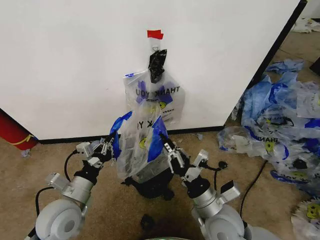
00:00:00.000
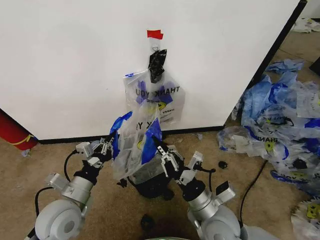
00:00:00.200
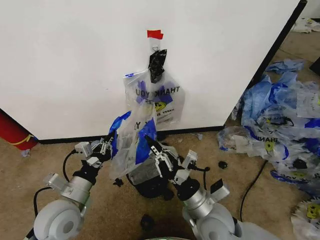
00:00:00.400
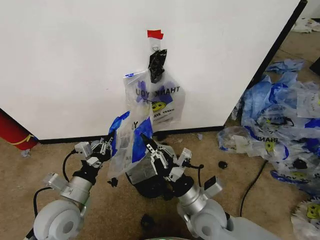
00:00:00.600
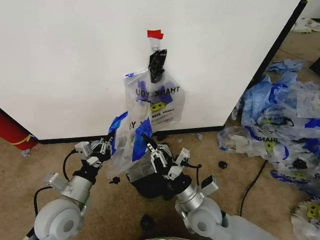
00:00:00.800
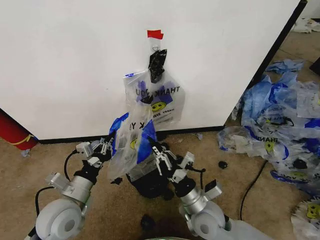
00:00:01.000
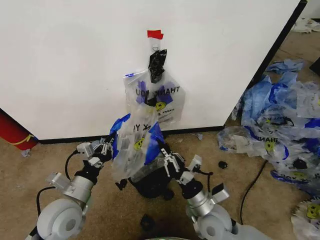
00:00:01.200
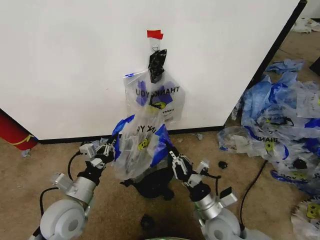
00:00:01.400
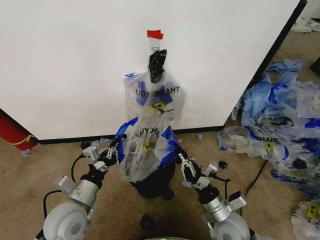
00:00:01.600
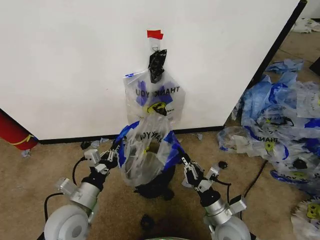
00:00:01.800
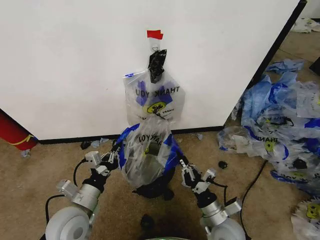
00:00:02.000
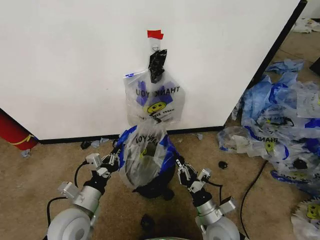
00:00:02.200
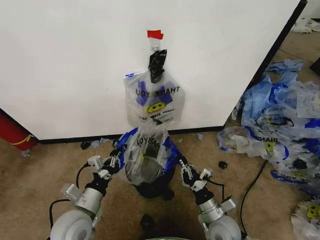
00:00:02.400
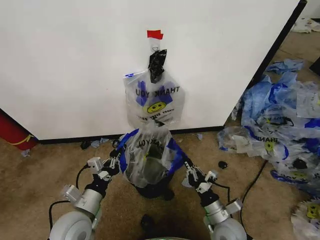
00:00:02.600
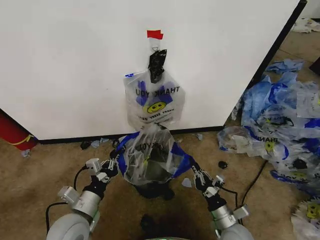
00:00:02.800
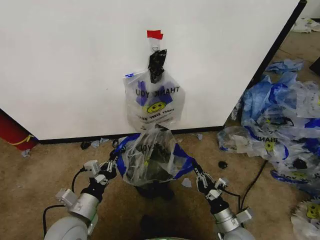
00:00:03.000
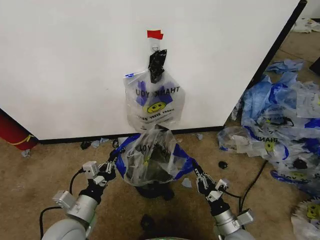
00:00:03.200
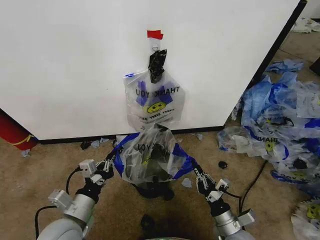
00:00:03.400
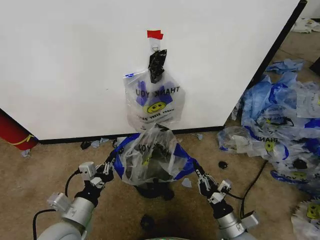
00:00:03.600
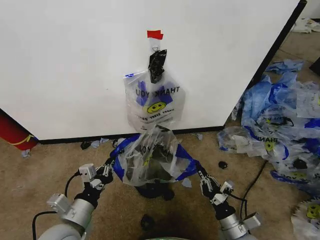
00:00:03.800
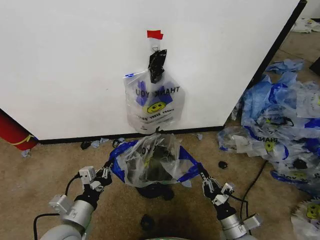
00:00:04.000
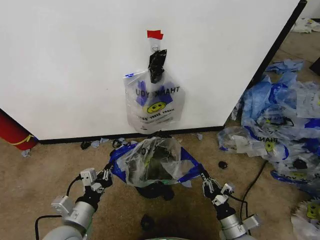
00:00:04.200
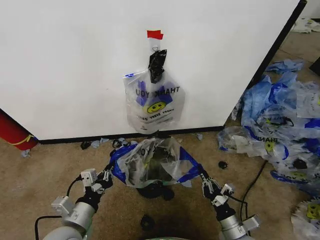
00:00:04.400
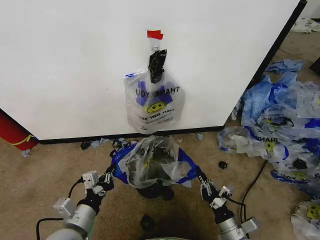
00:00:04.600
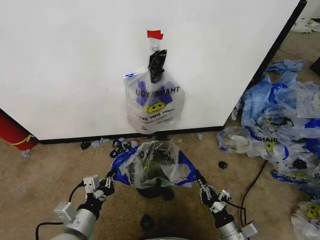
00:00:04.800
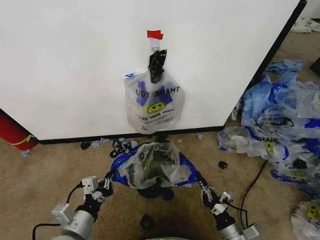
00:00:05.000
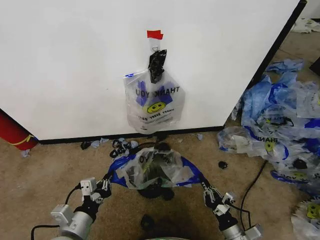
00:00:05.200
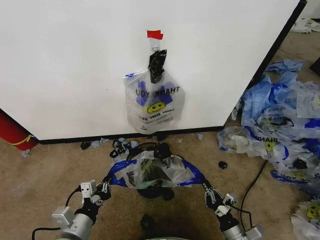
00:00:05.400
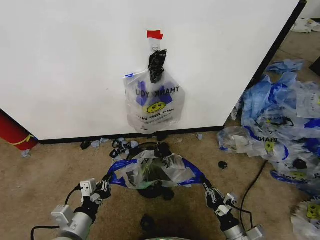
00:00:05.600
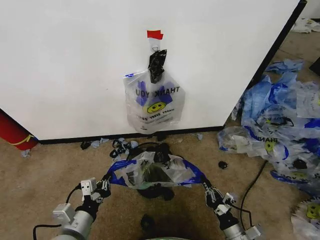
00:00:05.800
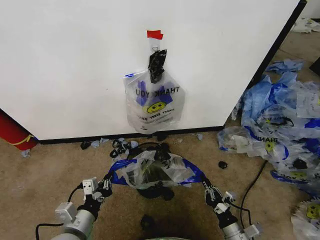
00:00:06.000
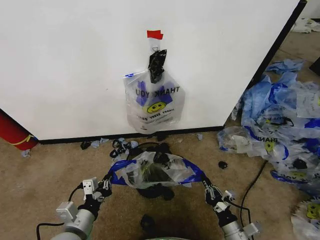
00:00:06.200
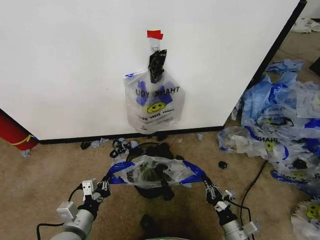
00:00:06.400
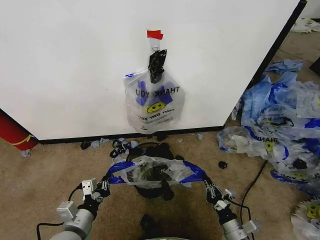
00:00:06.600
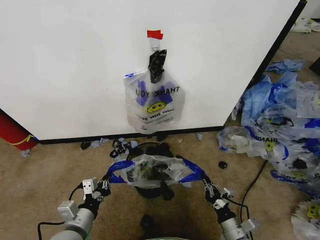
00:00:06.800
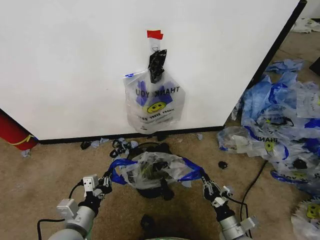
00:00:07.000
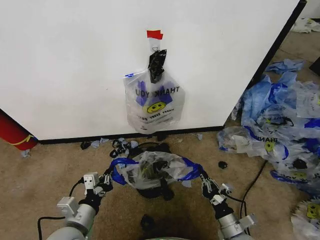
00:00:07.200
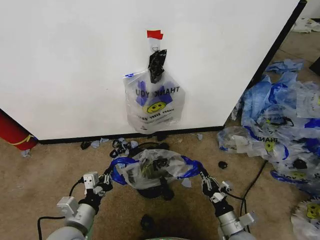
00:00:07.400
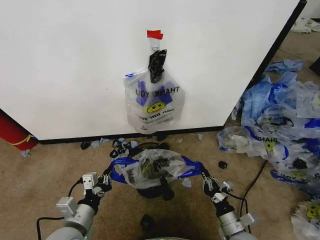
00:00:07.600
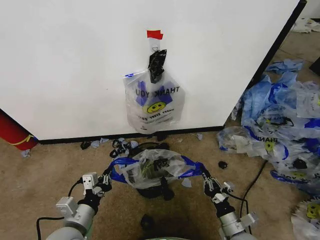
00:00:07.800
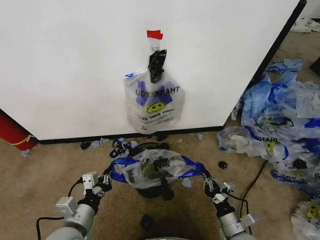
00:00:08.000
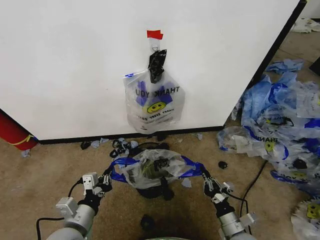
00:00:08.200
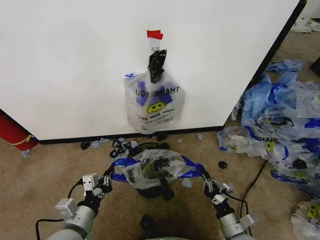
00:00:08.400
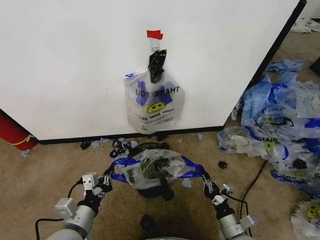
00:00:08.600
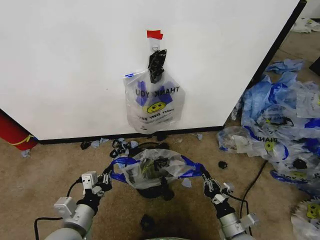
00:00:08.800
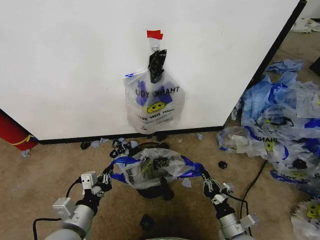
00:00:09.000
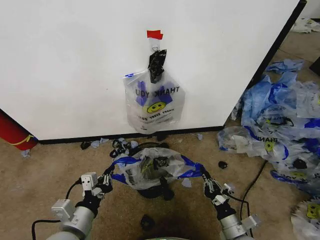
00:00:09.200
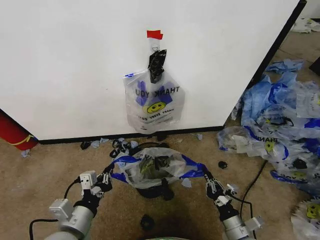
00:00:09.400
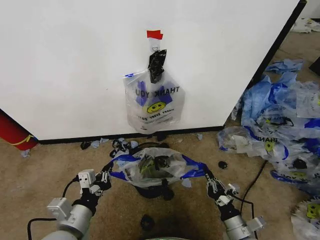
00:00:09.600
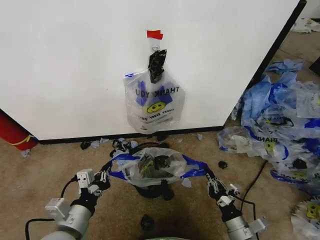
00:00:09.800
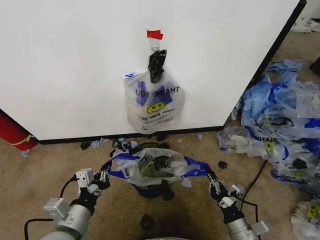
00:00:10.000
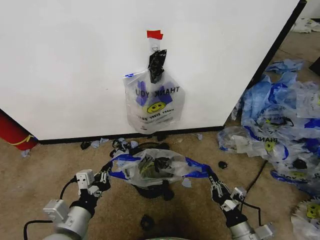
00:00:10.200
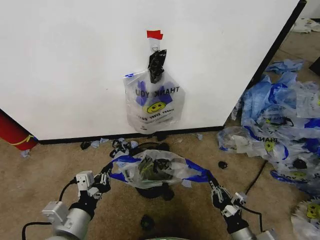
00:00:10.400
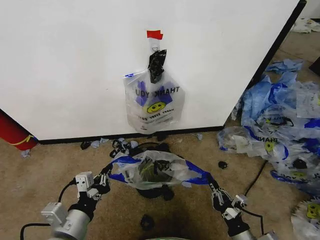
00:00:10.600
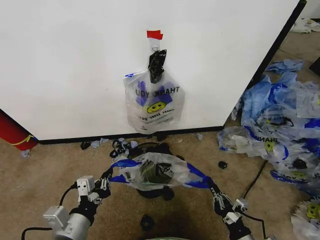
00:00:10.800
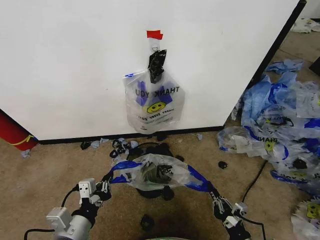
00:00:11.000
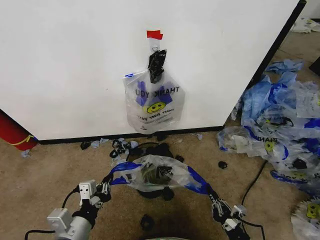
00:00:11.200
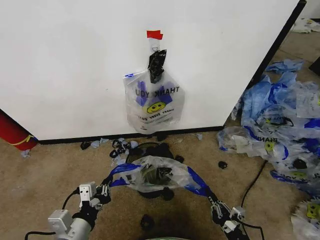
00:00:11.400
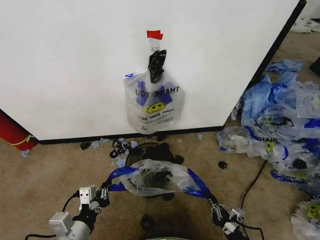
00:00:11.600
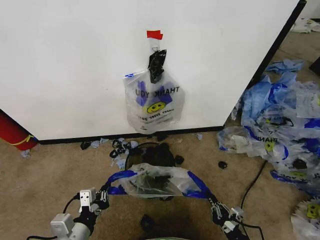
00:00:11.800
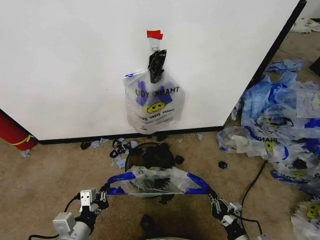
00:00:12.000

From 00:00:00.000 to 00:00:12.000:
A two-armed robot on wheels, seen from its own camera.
Task of the whole recording: Pick up the garbage bag from the wall and place it over the trash bin.
From 00:00:00.000 to 00:00:01.600: The right gripper moves downward, about 5 cm.
From 00:00:01.600 to 00:00:03.000: The right gripper shifts some 10 cm downward.
From 00:00:03.000 to 00:00:09.000: There are only small adjustments of the grippers.
From 00:00:09.000 to 00:00:10.400: The right gripper ends up some 5 cm from where it was.
From 00:00:10.400 to 00:00:12.000: Both grippers travel together downward, approximately 5 cm.

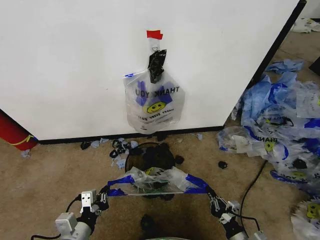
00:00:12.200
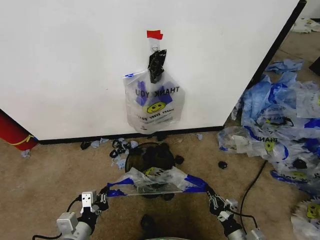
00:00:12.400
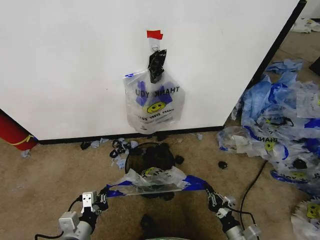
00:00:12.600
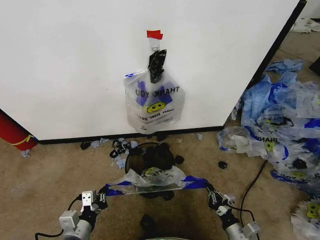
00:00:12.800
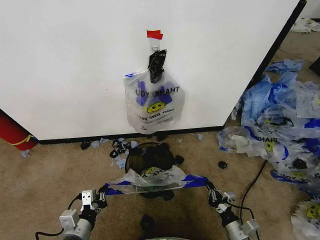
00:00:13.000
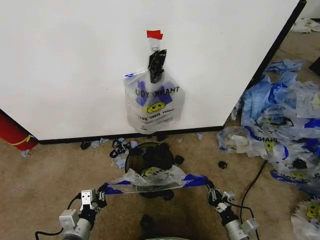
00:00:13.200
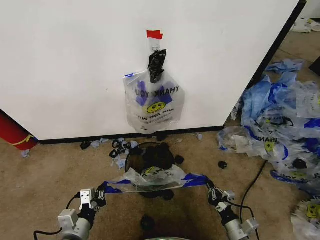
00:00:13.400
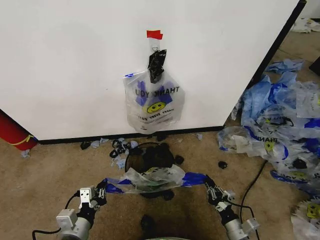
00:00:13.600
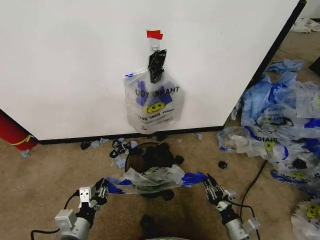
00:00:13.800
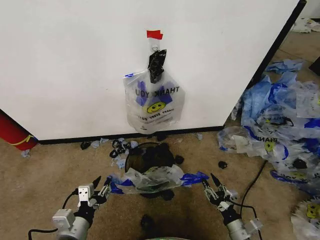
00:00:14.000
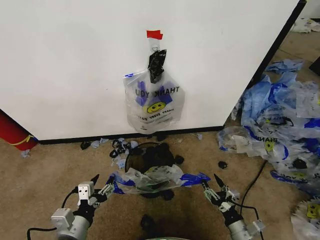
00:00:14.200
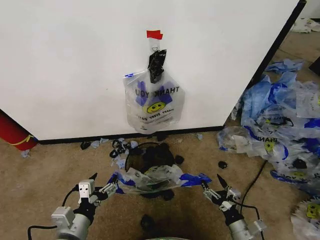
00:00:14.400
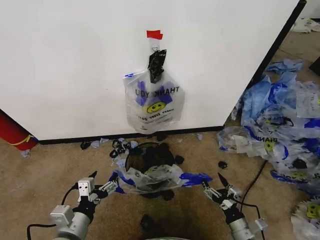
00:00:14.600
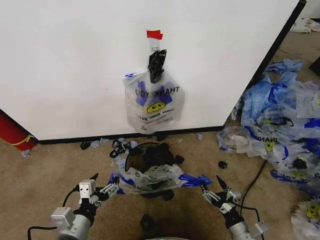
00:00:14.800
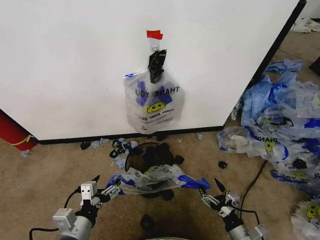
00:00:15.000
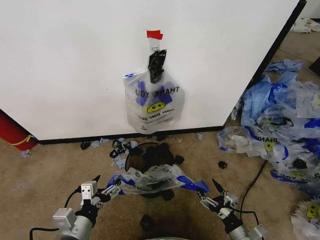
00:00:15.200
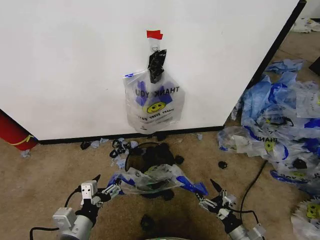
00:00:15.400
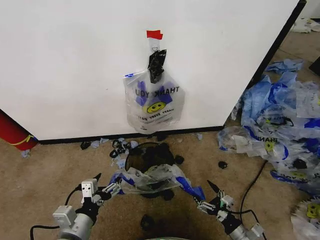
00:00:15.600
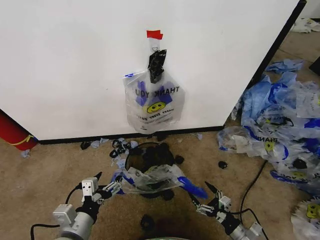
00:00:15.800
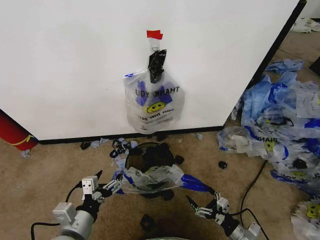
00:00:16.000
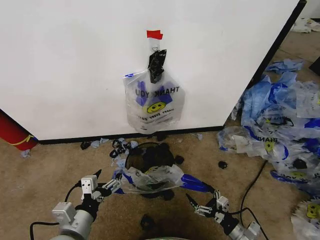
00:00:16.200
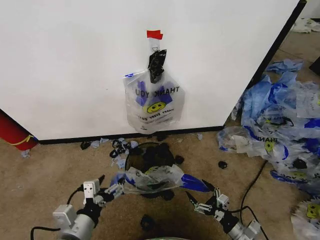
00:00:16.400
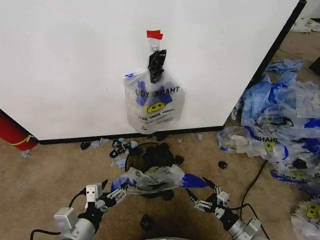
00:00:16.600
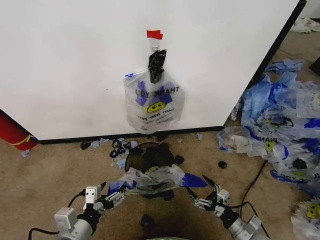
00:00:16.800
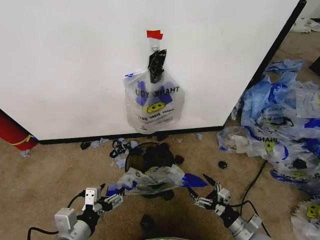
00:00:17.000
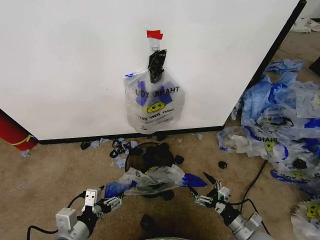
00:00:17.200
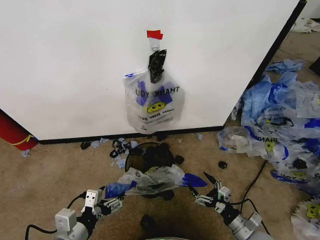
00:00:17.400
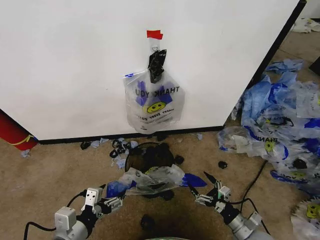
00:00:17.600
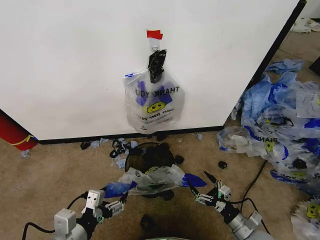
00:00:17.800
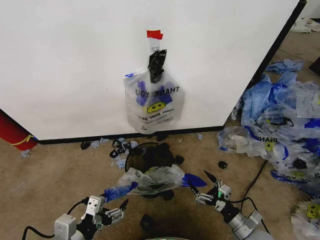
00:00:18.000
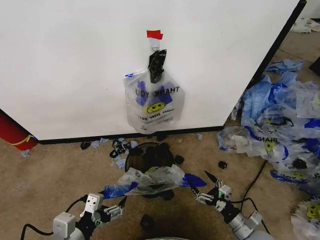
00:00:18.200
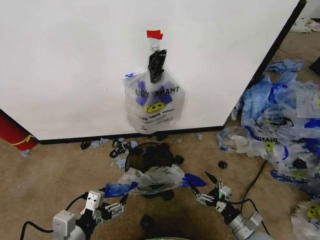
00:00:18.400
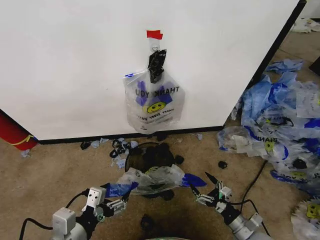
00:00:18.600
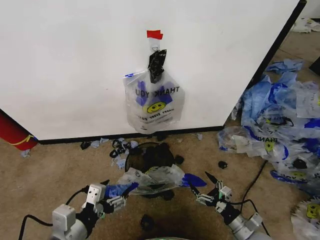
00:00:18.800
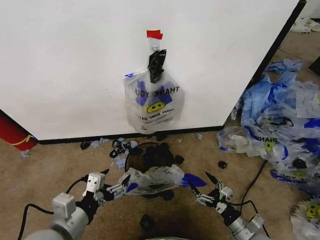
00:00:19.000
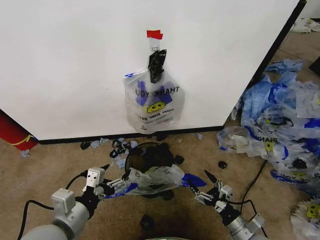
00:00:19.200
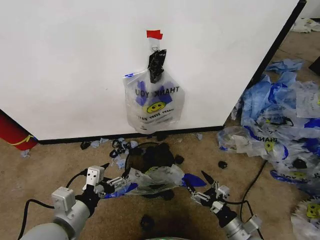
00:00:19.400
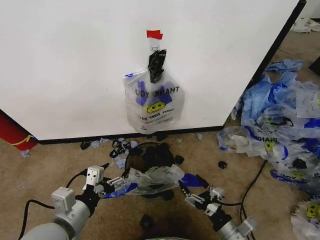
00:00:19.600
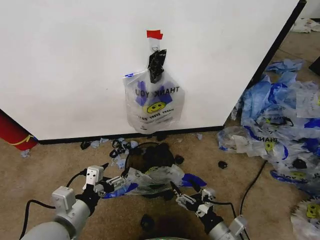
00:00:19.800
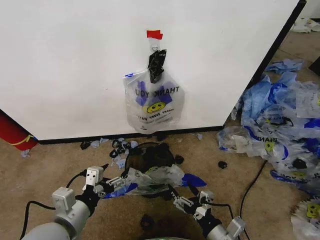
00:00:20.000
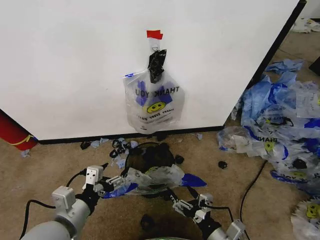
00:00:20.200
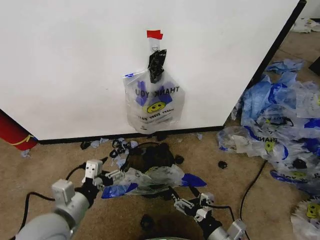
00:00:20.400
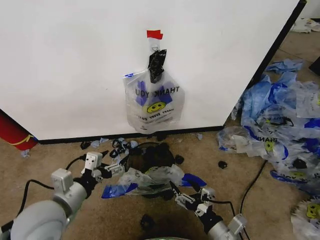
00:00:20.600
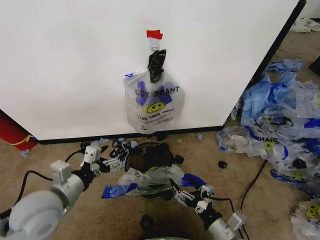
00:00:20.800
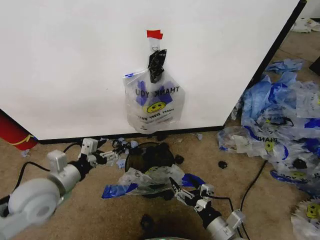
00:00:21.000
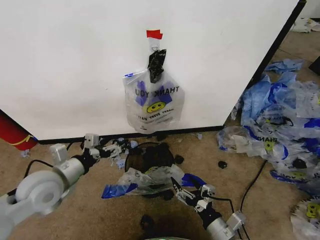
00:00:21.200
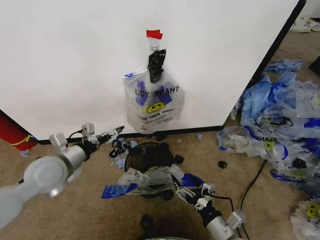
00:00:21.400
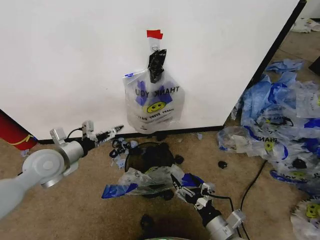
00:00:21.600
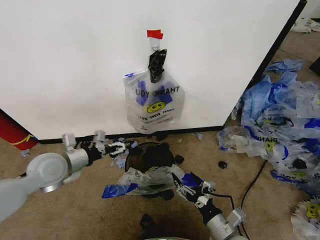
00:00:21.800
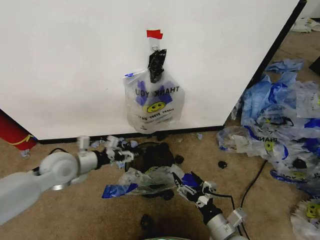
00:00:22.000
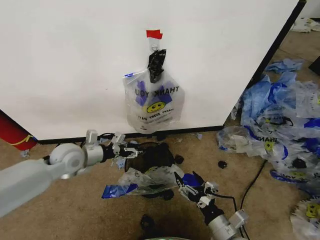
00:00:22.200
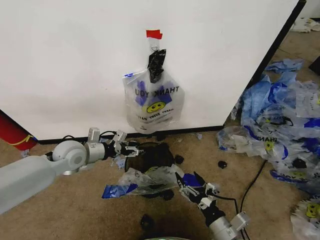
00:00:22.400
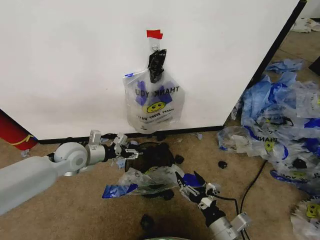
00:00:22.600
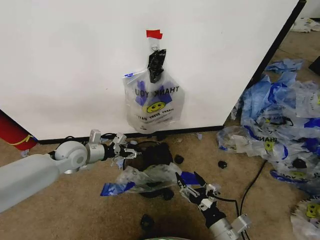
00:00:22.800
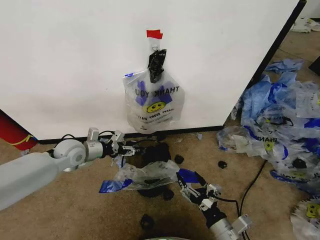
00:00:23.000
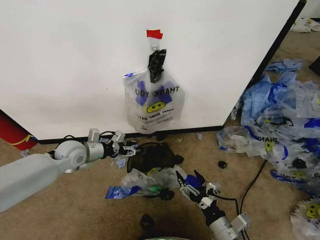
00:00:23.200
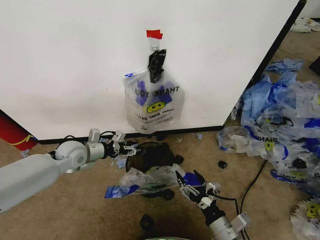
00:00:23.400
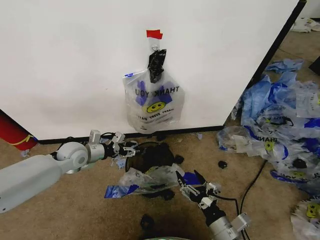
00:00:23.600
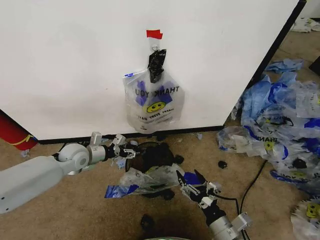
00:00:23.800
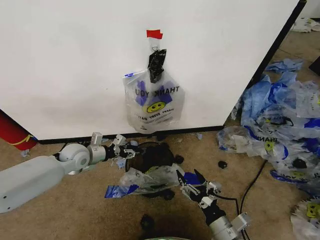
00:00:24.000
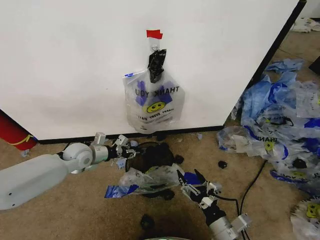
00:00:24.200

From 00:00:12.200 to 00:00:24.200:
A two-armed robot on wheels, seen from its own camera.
Task of the whole recording: Pick up the garbage bag from the wall and place it over the trash bin.
From 00:00:12.200 to 00:00:13.800: The grippers stay close to where they were, moving slightly.
From 00:00:13.800 to 00:00:15.200: The right gripper opens; the left gripper opens up.
From 00:00:15.200 to 00:00:16.600: The grippers stay close to where they were, moving slightly.
From 00:00:16.600 to 00:00:18.200: There are only small adjustments of the grippers.
From 00:00:18.200 to 00:00:19.800: The right gripper shifts about 10 cm to the left and upward. Meanwhile the left gripper changes place by approximately 5 cm.
From 00:00:19.800 to 00:00:21.200: The left gripper goes approximately 15 cm forward and to the left.
From 00:00:21.200 to 00:00:22.600: The left gripper shifts some 10 cm forward.
From 00:00:22.600 to 00:00:24.200: The left gripper ends up approximately 5 cm from where it was.
